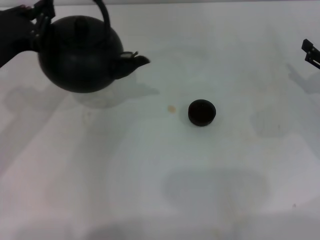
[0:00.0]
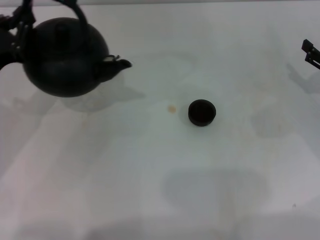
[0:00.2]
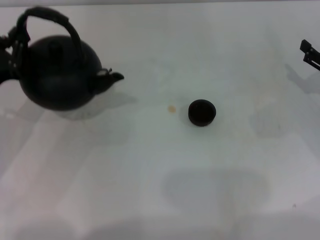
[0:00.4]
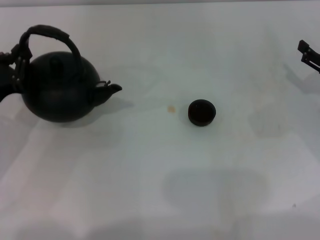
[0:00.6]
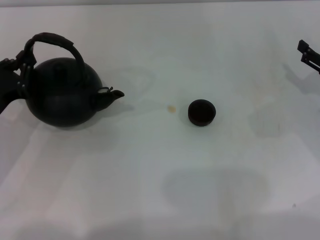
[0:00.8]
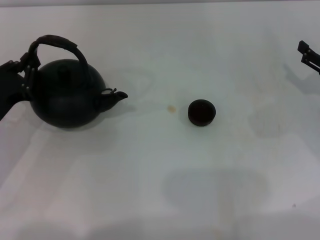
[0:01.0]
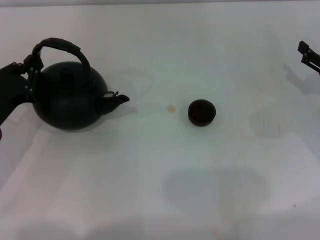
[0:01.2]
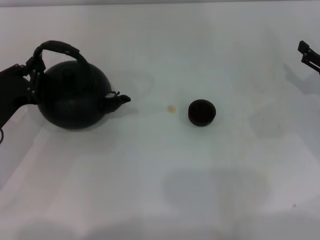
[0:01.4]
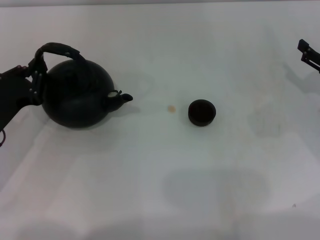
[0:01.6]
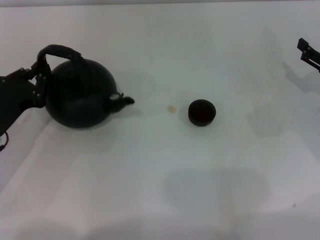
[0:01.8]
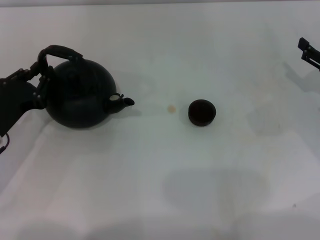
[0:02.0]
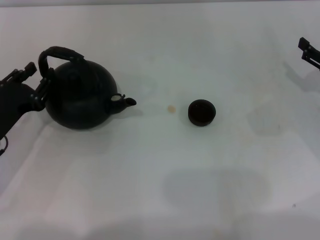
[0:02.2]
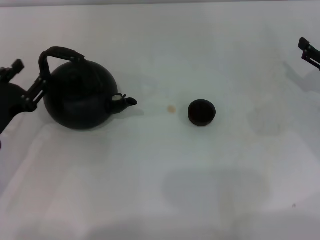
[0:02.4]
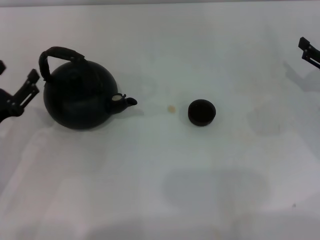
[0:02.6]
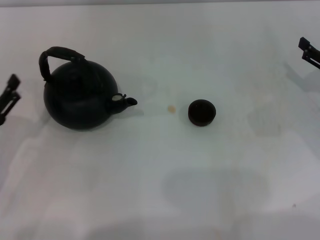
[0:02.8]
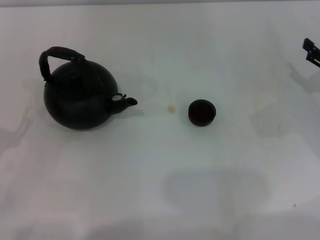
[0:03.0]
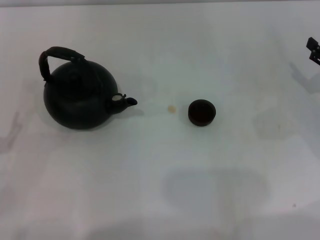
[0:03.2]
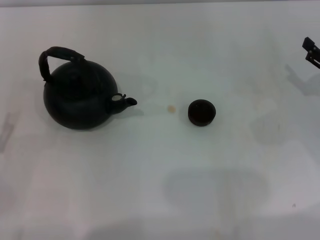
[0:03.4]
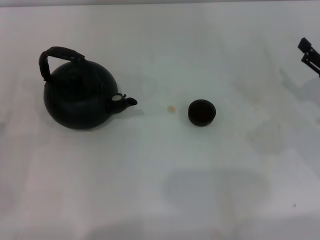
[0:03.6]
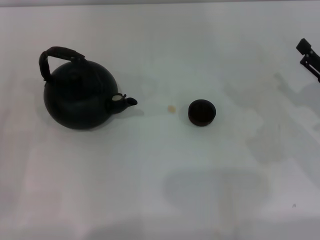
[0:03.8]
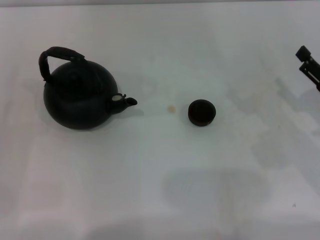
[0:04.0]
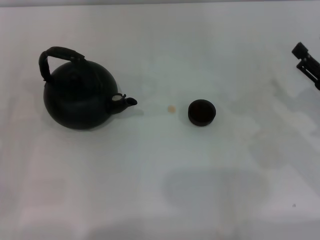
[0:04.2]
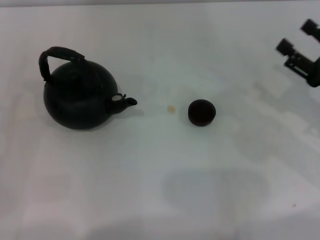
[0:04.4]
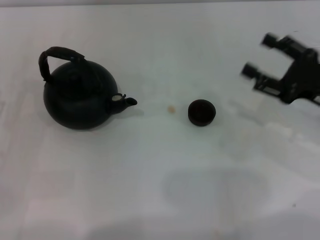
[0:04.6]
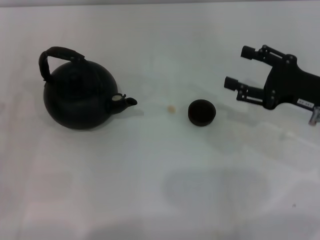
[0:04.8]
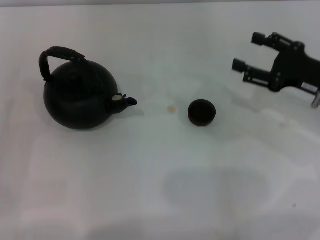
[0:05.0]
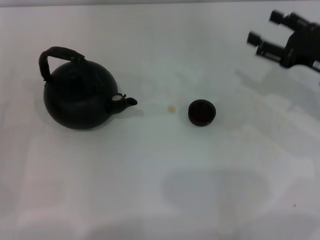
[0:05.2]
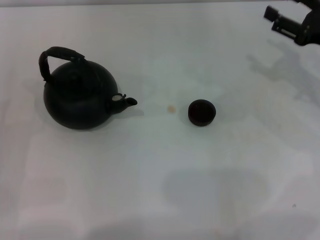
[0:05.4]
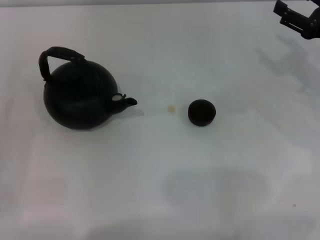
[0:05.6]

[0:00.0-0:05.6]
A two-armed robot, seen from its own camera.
Task of the whole recording: Grasp the handle of the teapot with one hand and pour tea into the teacup.
Step, 0.0 to 2.4 s: Put down the teapot with the left gripper.
0.0 to 1.4 s: The left gripper goes roughly 10 cm downward.
1.4 to 2.8 s: The left gripper is displaced backward by about 5 cm, and opens up.
2.8 to 4.2 s: The right gripper travels backward by approximately 5 cm.
4.2 to 5.6 s: The right gripper goes about 10 cm forward and upward.

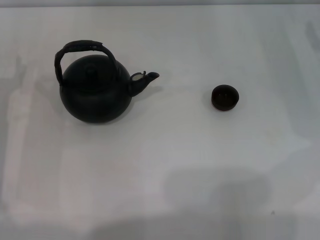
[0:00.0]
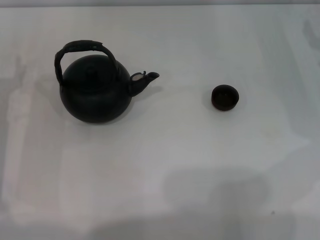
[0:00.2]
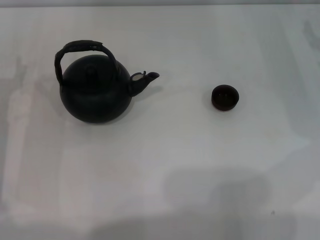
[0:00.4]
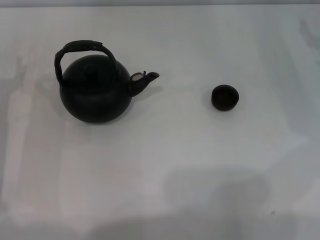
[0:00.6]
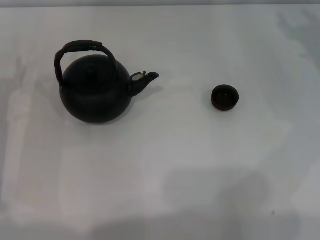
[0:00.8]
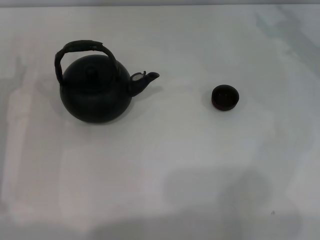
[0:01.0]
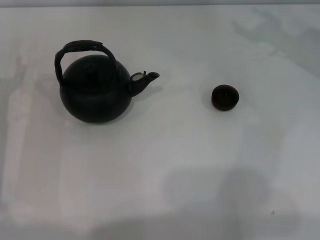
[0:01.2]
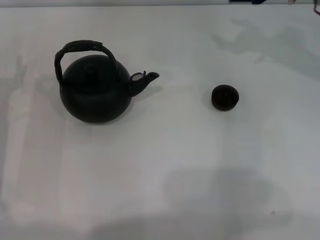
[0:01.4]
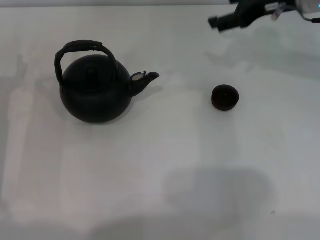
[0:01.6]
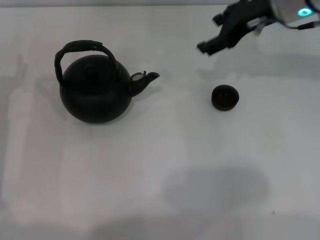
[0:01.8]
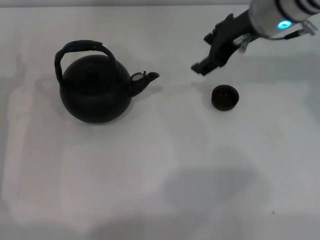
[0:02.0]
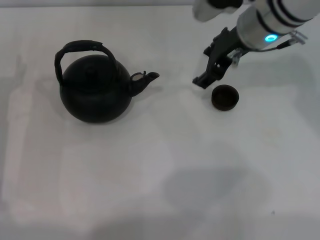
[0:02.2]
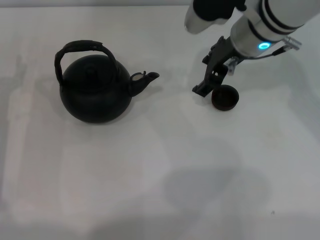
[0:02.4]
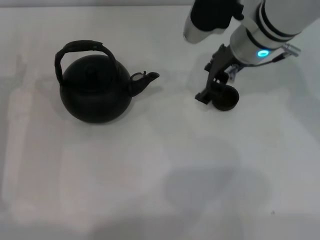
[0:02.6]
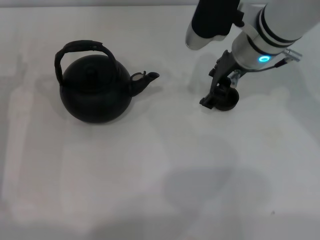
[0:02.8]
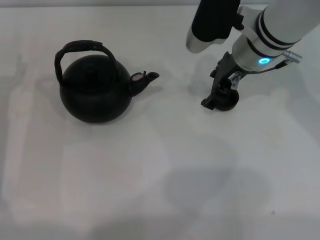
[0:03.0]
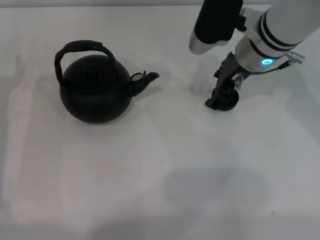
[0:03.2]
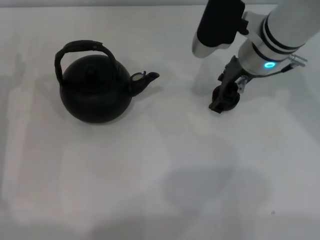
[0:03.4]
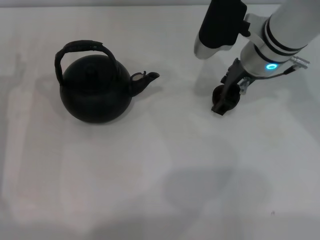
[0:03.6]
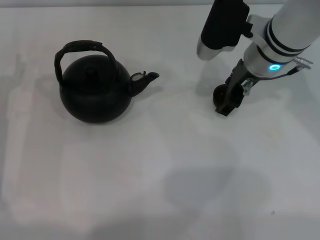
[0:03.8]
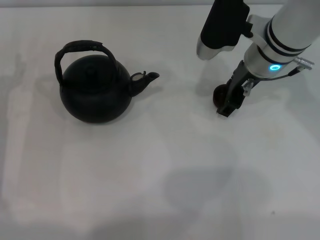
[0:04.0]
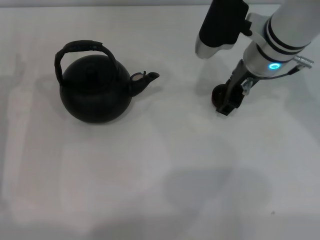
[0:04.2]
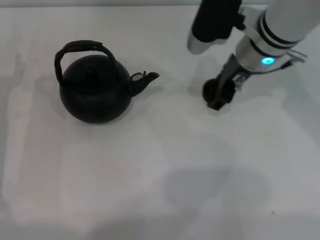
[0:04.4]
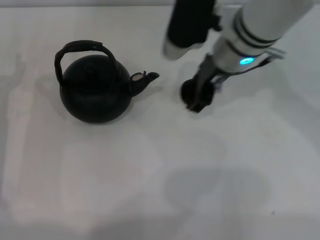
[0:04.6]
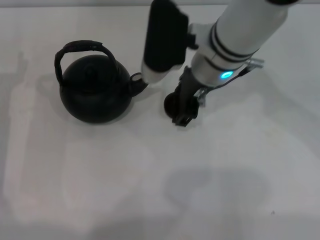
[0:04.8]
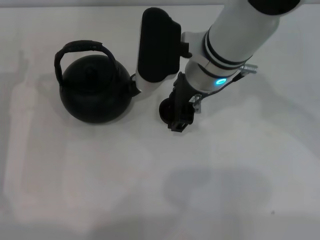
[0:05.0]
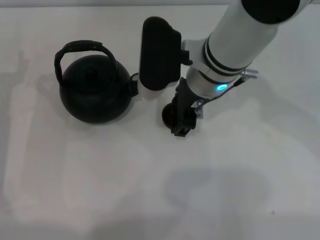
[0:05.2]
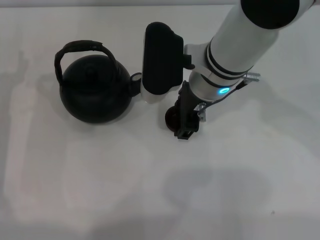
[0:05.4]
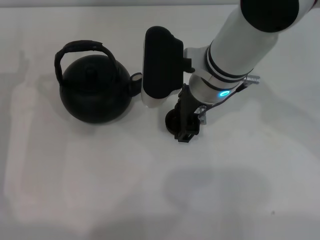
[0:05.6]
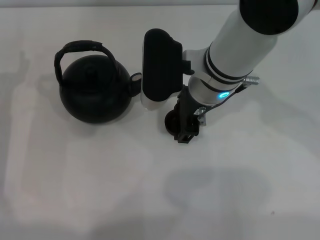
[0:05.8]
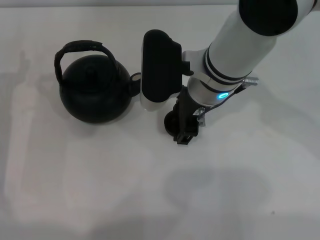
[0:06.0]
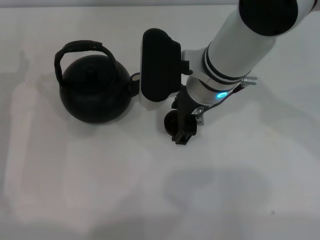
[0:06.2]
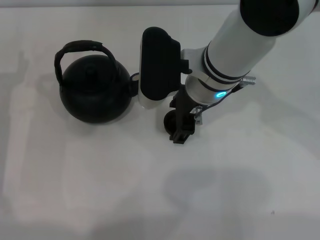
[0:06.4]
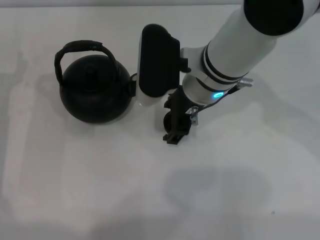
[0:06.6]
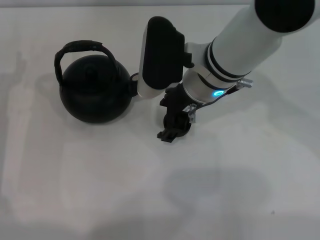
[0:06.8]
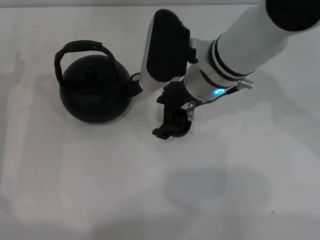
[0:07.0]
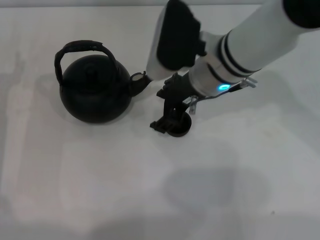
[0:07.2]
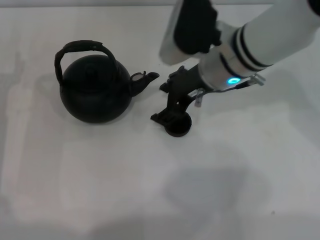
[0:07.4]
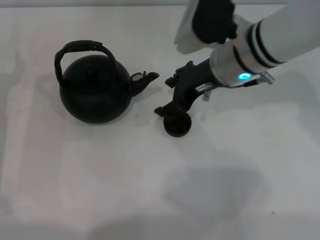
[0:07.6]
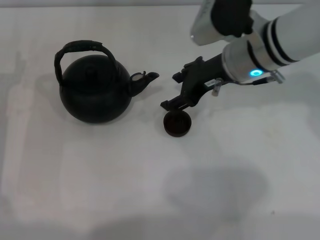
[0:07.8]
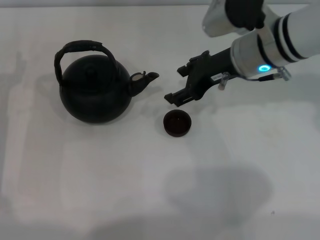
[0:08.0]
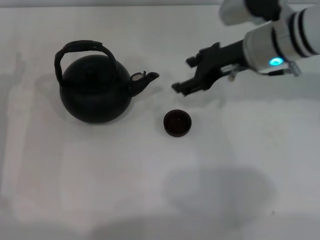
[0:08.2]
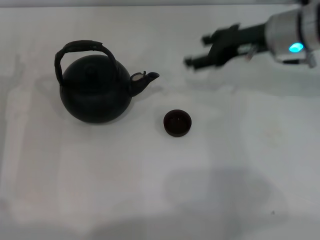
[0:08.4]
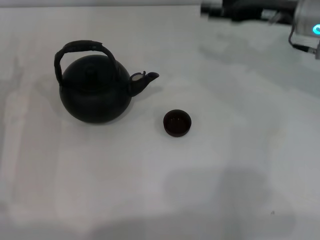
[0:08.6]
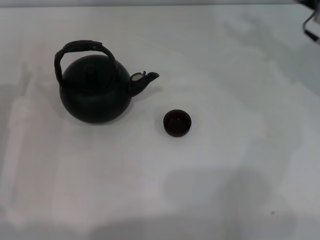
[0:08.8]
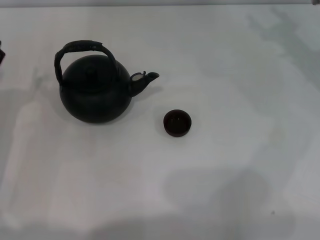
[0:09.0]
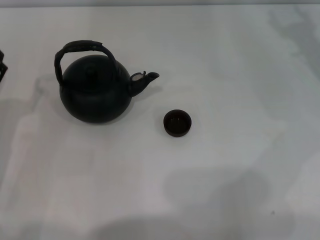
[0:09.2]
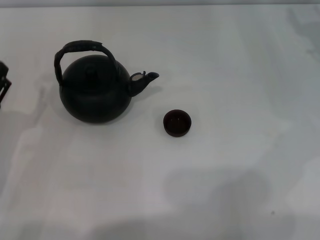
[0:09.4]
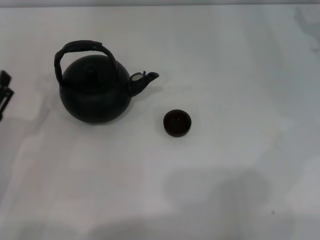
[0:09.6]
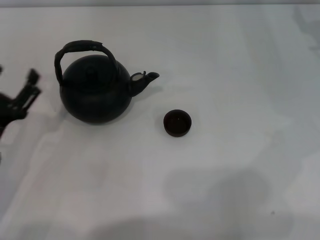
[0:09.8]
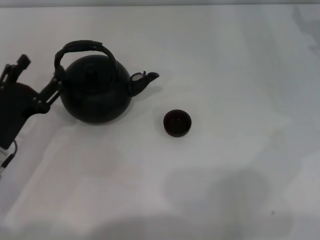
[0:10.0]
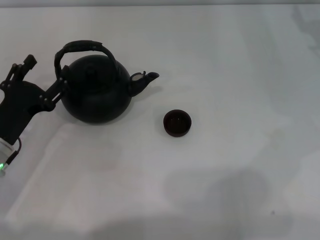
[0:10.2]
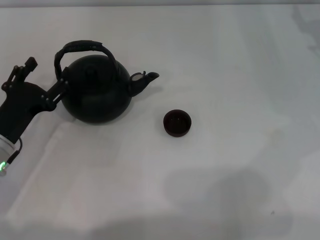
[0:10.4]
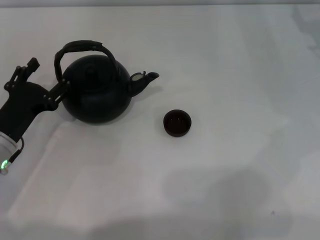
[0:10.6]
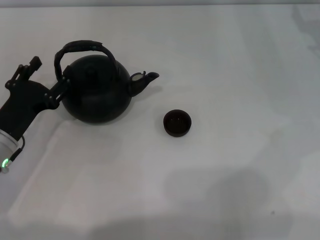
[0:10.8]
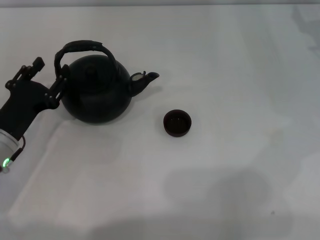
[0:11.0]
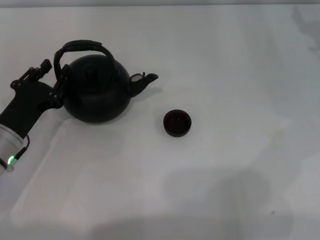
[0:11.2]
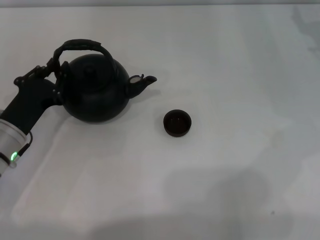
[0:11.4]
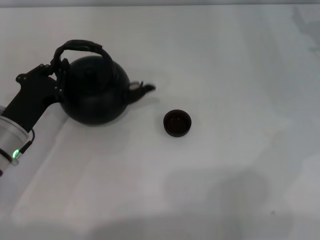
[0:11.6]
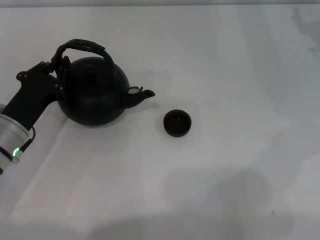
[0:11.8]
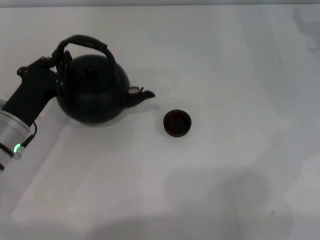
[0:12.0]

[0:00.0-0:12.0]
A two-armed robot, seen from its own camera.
Task of the whole recording: Grasp the handle of the teapot with one hand and pour tea into the teacup.
Step, 0.0 to 4.4 s: Pick up the teacup with the right gripper.
Step, 4.6 to 7.6 s: Place the teacup in the center of view with the right gripper.
0.0 to 1.6 s: The right gripper moves to the left, upward and forward, approximately 20 cm.
1.6 to 3.0 s: The right gripper is displaced to the left by about 10 cm.
3.0 to 4.4 s: The grippers stay close to where they were, moving slightly.
4.4 to 6.0 s: The right gripper travels to the left by about 5 cm.
6.0 to 7.6 s: The right gripper shifts approximately 5 cm to the right.
7.6 to 9.0 s: The right gripper goes approximately 20 cm to the right.
10.4 to 12.0 s: The left gripper closes.

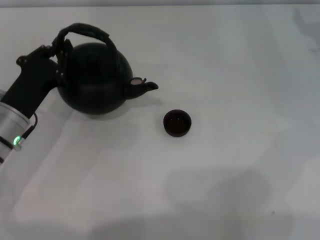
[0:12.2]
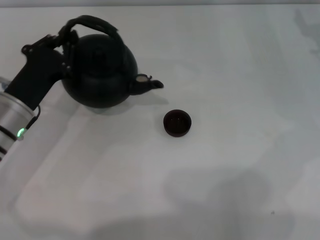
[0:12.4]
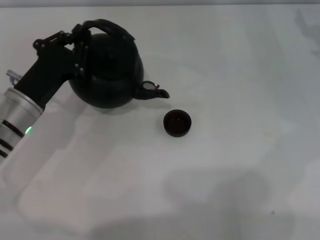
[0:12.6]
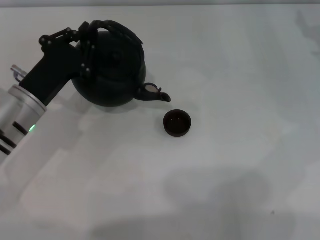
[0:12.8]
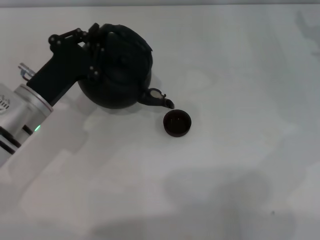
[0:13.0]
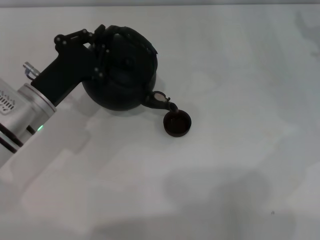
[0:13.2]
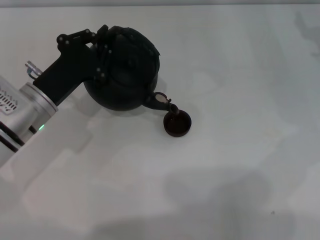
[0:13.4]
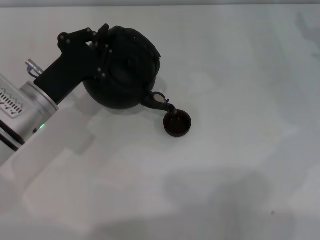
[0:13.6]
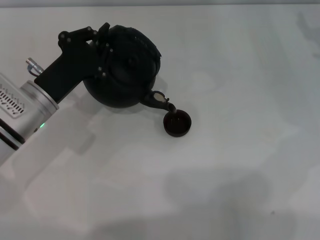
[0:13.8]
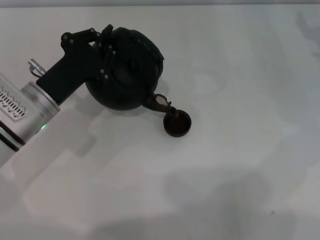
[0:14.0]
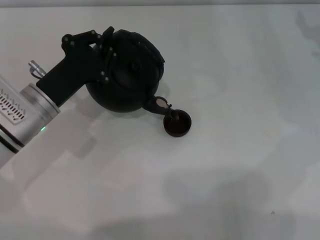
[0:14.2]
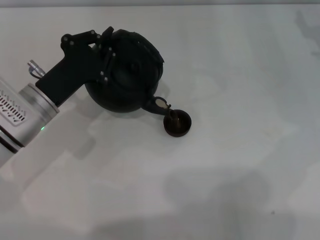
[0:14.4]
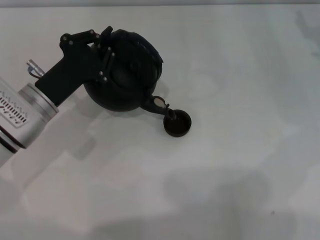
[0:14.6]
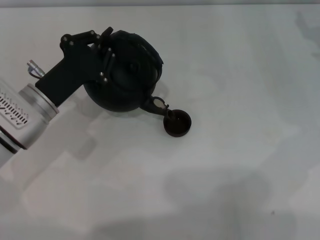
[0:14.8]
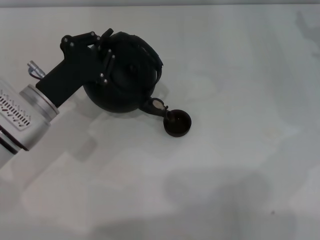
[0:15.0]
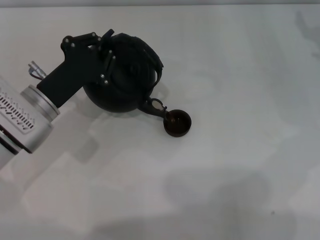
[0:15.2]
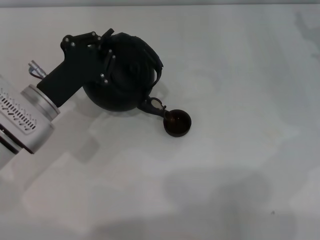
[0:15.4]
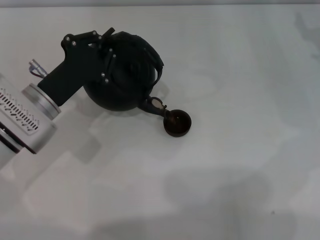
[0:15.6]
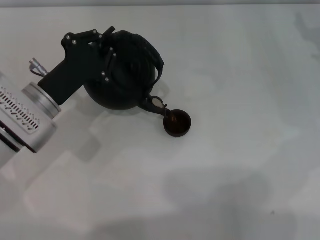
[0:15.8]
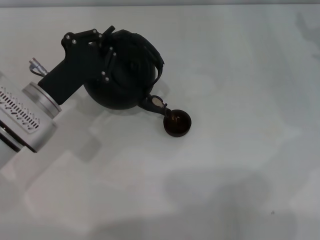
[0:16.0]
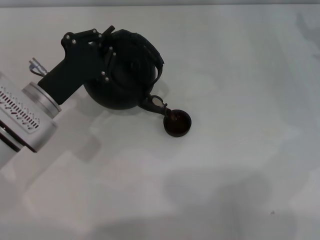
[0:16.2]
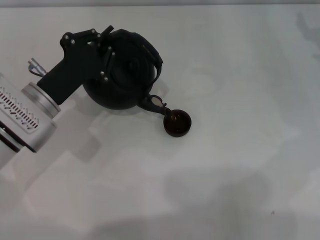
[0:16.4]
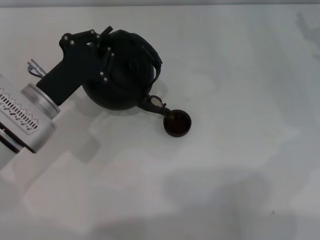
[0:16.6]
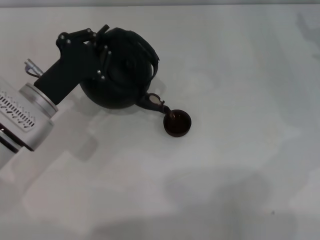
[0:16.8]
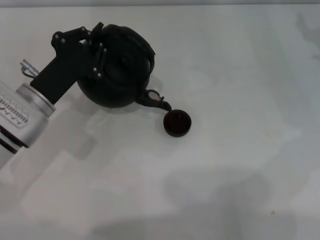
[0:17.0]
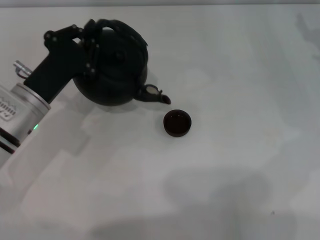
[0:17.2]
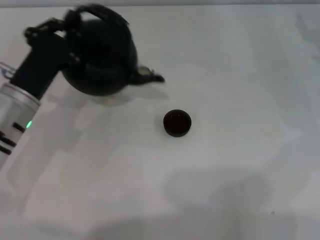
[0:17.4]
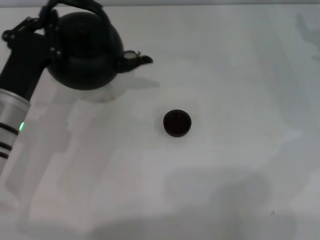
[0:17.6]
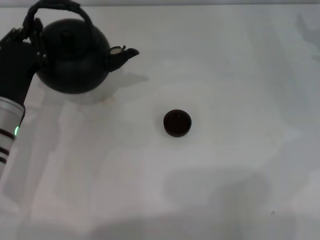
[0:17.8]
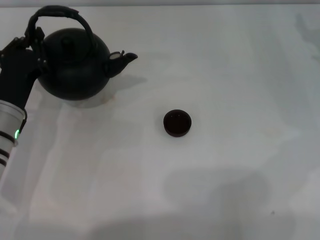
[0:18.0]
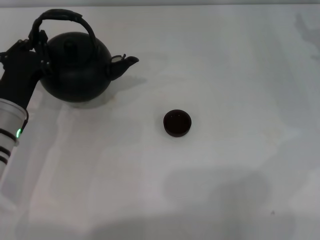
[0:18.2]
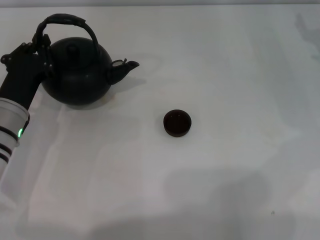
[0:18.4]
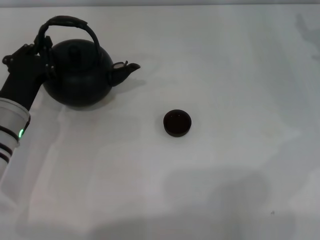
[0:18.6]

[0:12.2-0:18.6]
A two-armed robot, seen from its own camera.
Task of the whole recording: Grasp the handle of the teapot with one hand and pour tea into the teacup.
Step, 12.4 to 17.0 s: Pour tea into the teacup with the left gripper.
13.8 to 17.0 s: The grippers move only a little.
